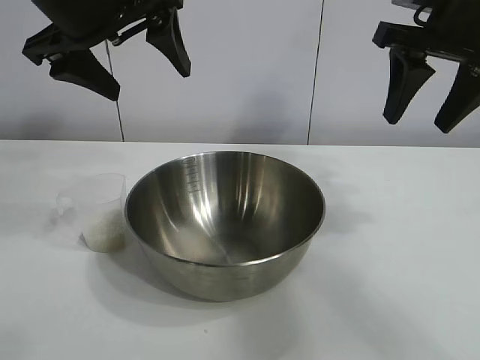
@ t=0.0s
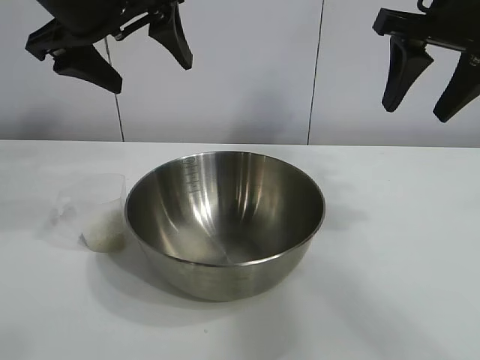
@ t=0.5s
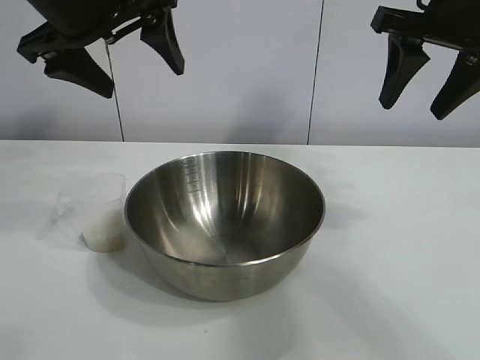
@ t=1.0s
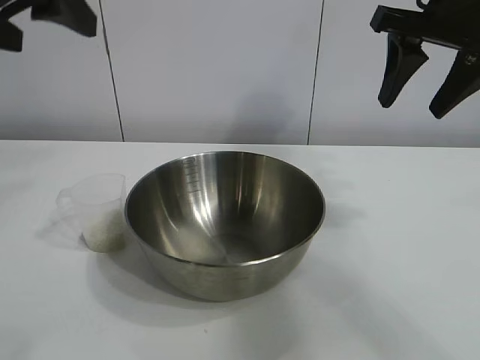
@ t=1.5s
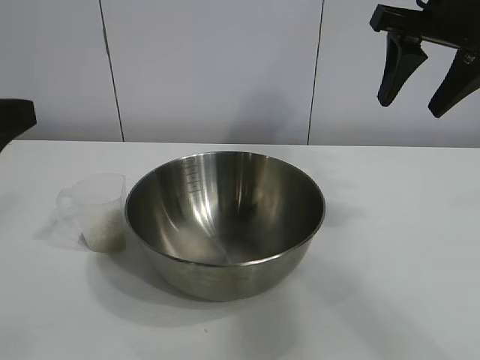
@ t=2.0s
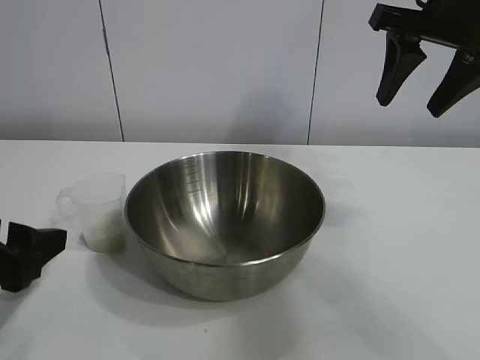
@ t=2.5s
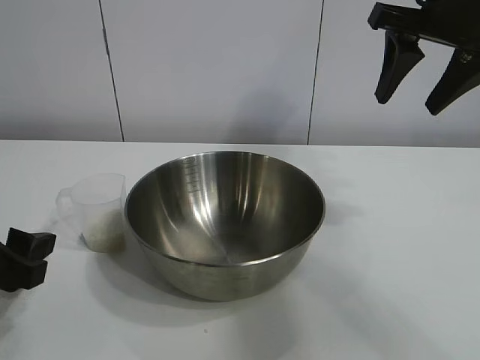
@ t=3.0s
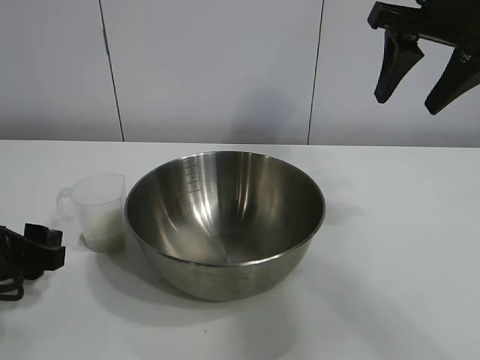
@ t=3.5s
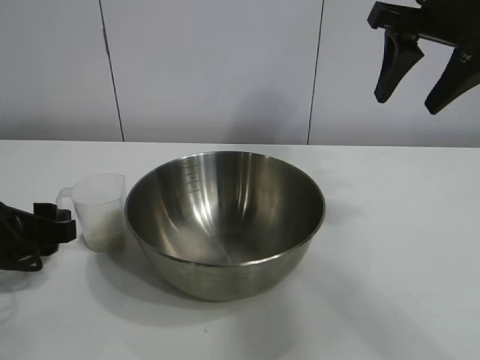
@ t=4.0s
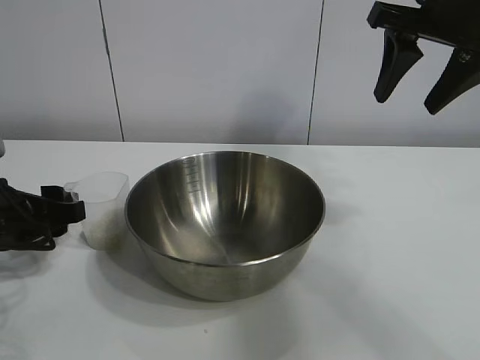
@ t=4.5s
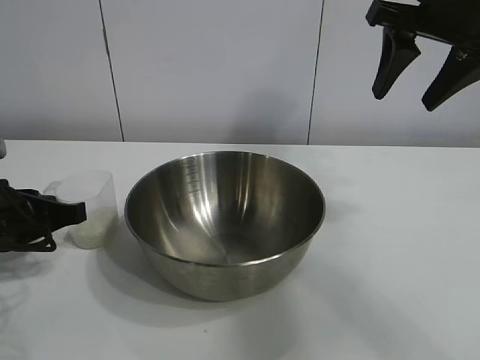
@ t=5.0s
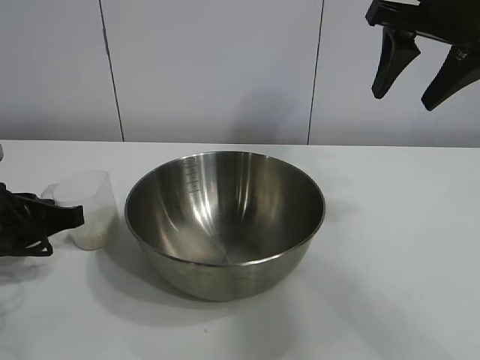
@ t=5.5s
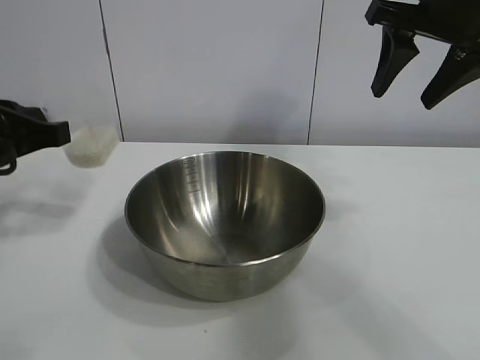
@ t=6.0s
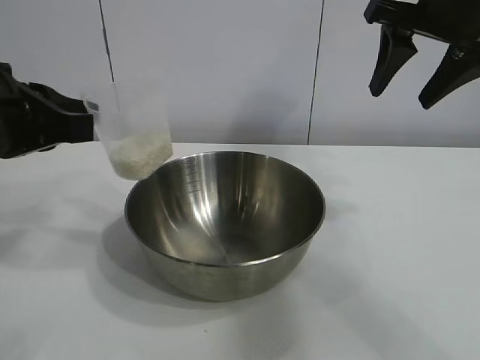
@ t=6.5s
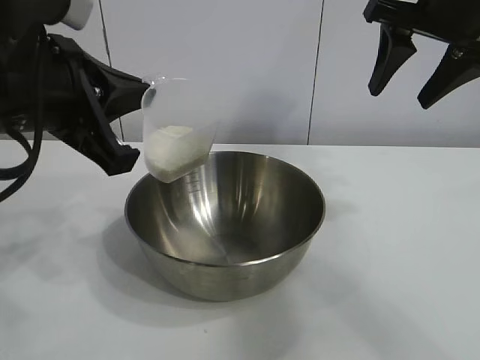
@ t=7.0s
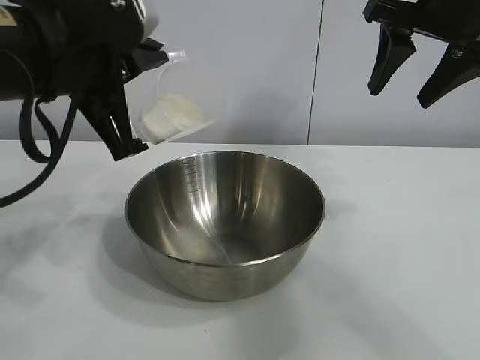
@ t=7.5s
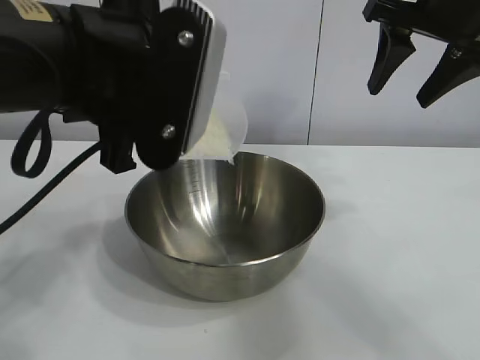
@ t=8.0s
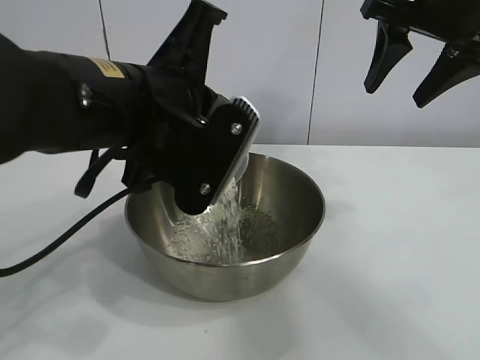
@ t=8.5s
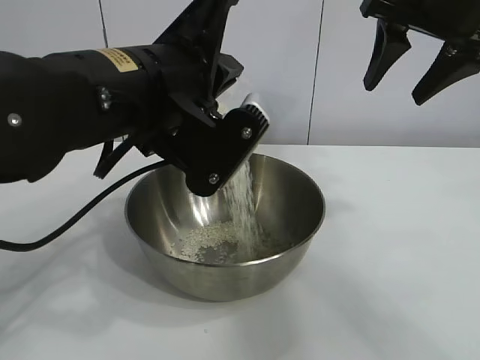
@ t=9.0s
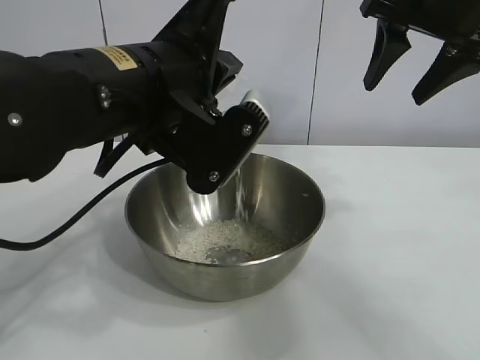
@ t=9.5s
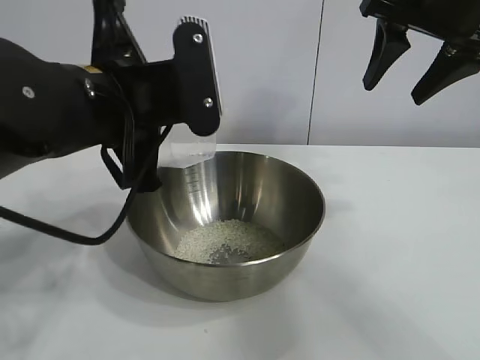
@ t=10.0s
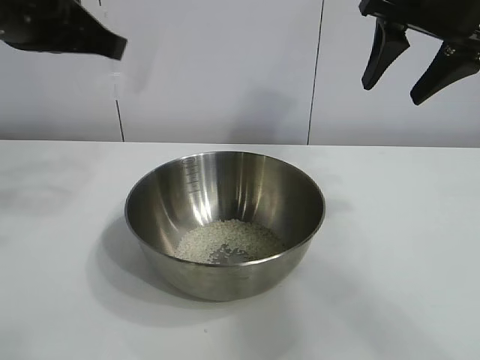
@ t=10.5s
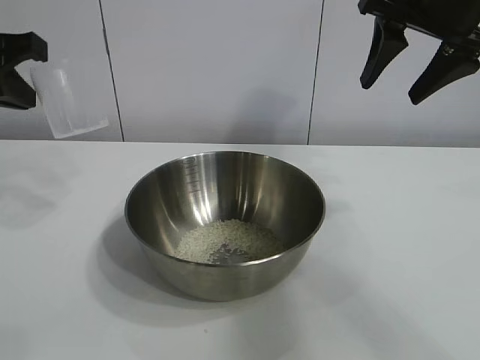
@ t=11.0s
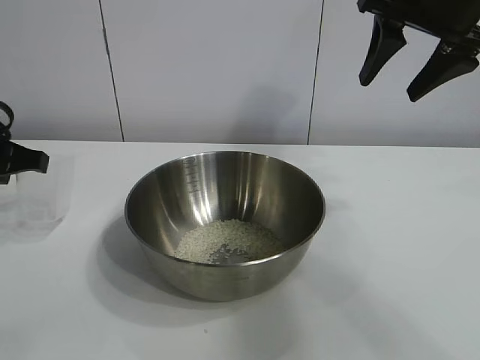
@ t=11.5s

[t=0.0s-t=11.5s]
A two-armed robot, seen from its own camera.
Task of the whole recording: the right gripper grasp the rice container and place it in the center of the table, the left gripper grasp the rice scoop and pour the rice into the rice container.
Step, t=0.0s to t=4.5s: Grasp the cup with rice in it with left gripper.
Step, t=5.5s to t=9.5s: Pour the rice from the cup into the bowl with the left gripper.
